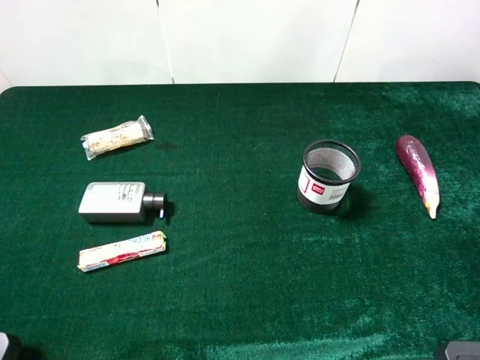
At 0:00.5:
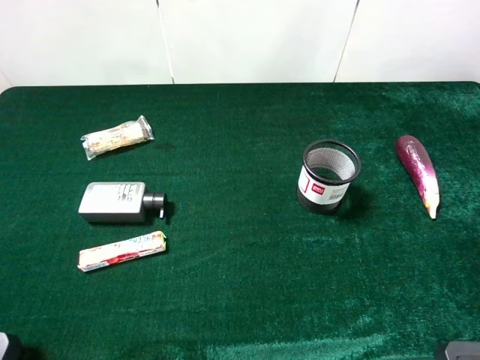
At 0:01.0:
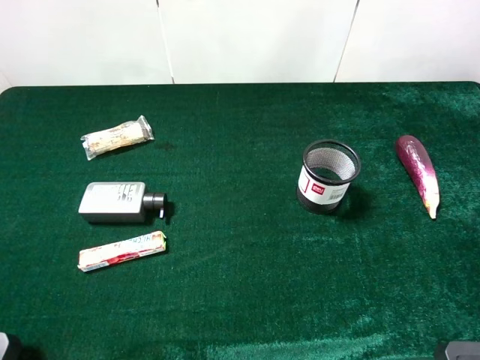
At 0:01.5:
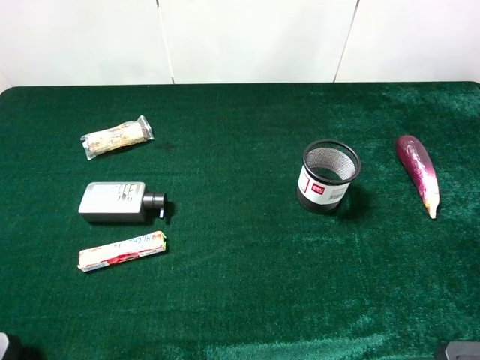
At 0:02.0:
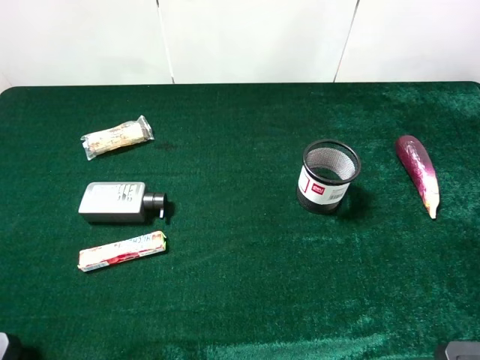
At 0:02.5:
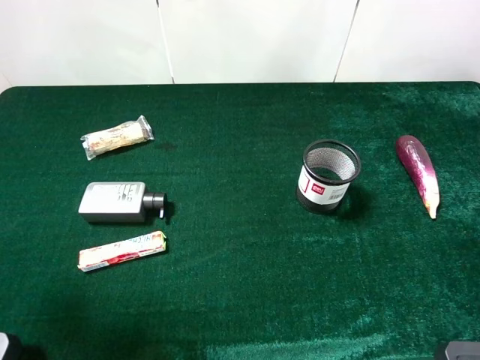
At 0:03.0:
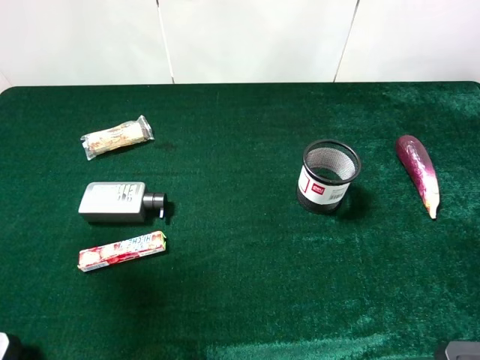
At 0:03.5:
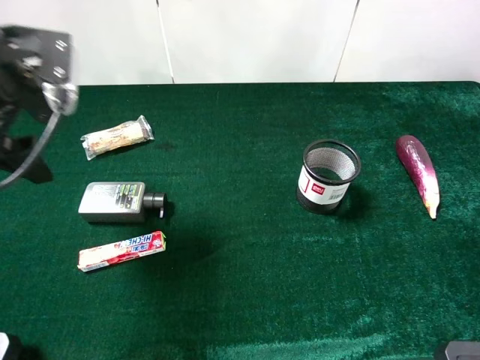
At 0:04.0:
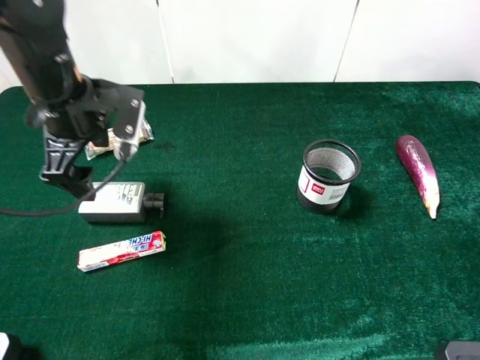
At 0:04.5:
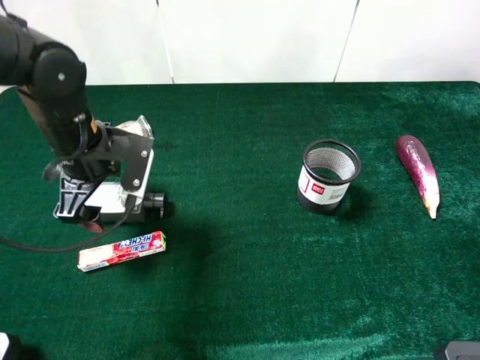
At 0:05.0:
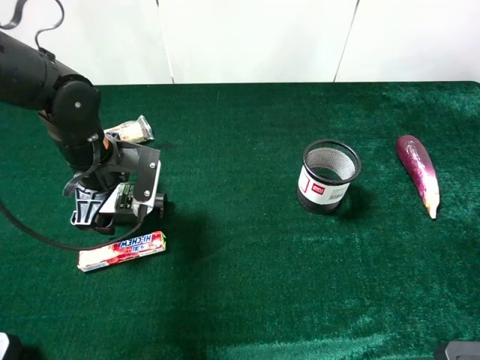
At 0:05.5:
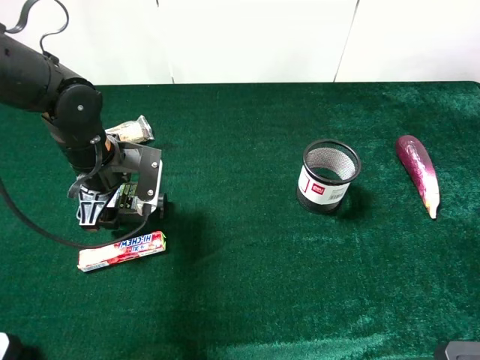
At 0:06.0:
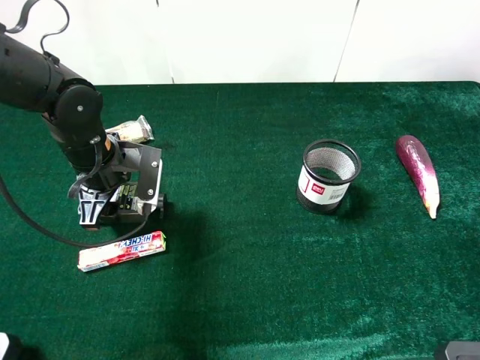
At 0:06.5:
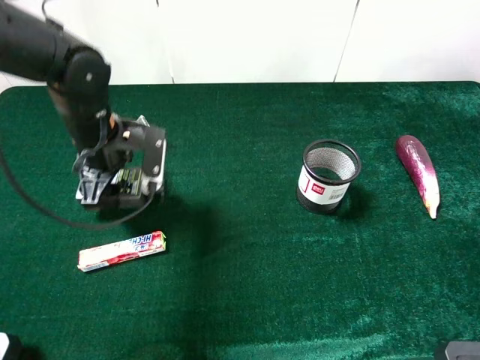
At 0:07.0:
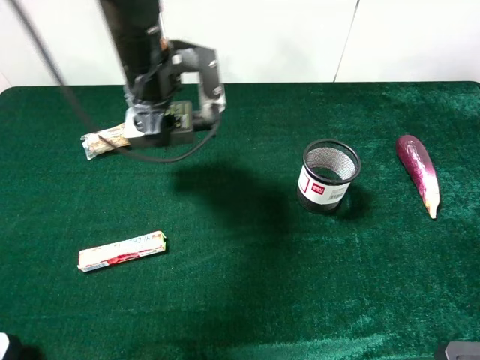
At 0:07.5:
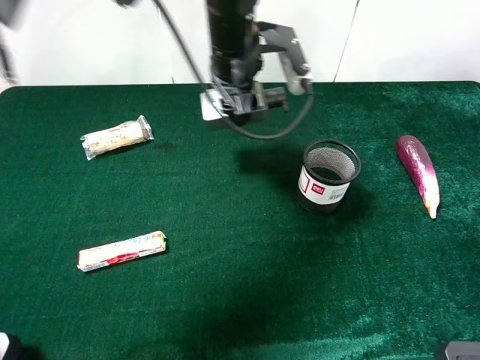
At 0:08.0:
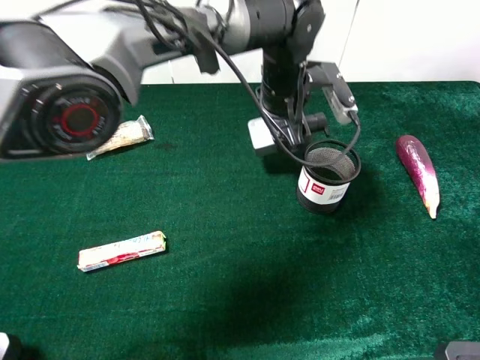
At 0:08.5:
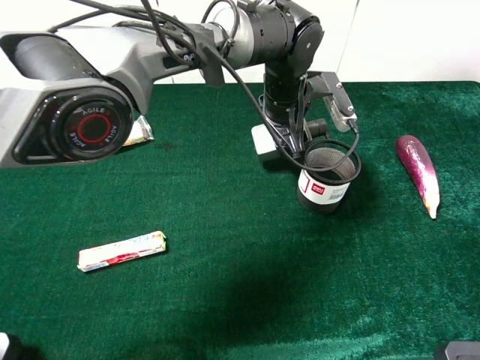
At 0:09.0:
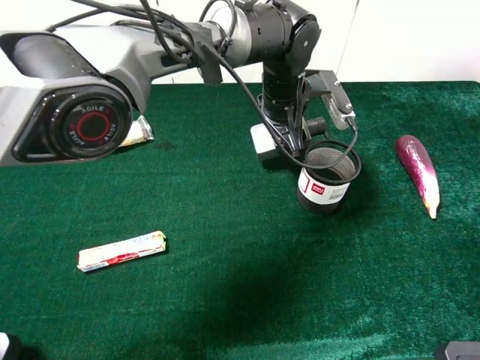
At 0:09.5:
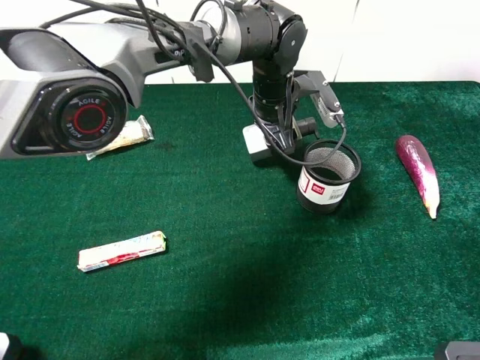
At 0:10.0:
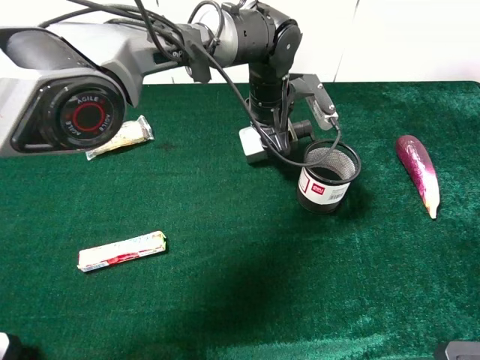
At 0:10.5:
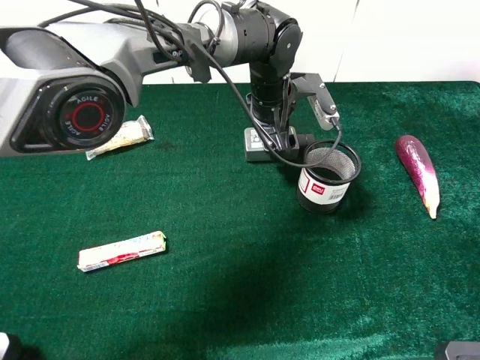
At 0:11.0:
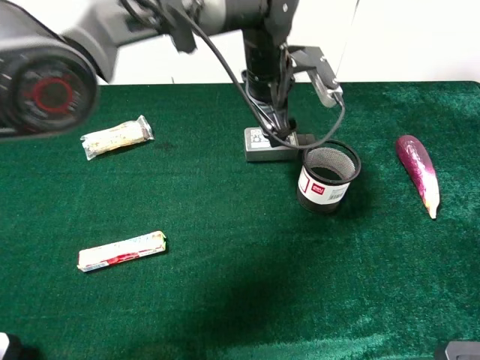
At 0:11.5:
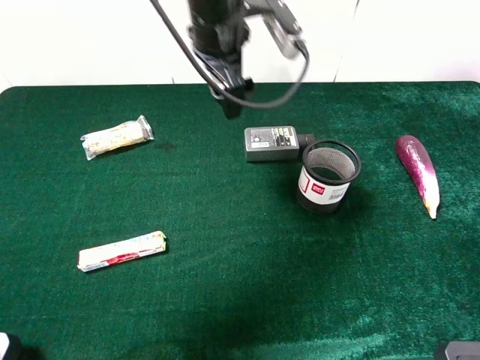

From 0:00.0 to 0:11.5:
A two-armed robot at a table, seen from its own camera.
Task of the whole recording: the gripper move the object.
Step, from 0:00.0 to 0:05.5: Grasp the hard facial cleanser with the left gripper.
Step, from 0:06.0 to 0:10.0: Place the hard facial cleanser on the table with the left gripper.
From 0:02.0 to 0:04.0: The left gripper shifts roughly 30 cm forward and to the right.
From 0:04.0 to 0:06.0: The left gripper travels downward by some 10 cm, and closes.
From 0:06.0 to 0:07.5: The left gripper moves to the right, forward and upward, roughly 25 cm.
From 0:07.5 to 0:09.5: The left gripper heads downward, covering about 10 cm.
From 0:09.5 to 0:11.5: The left gripper heads upward and to the left, covering approximately 15 cm, and opens up.

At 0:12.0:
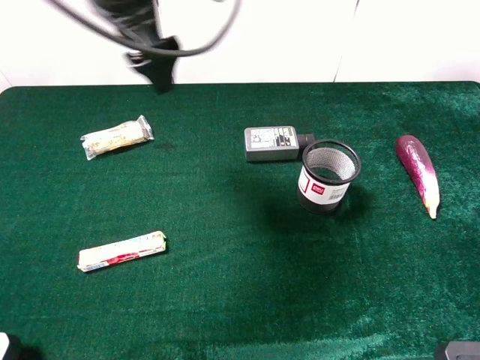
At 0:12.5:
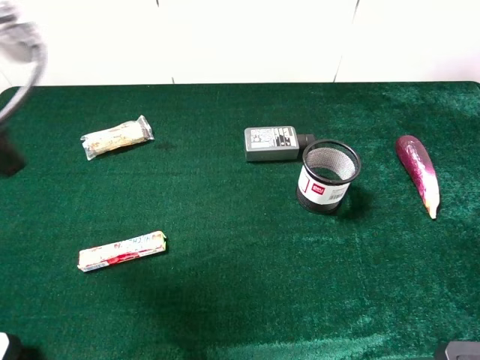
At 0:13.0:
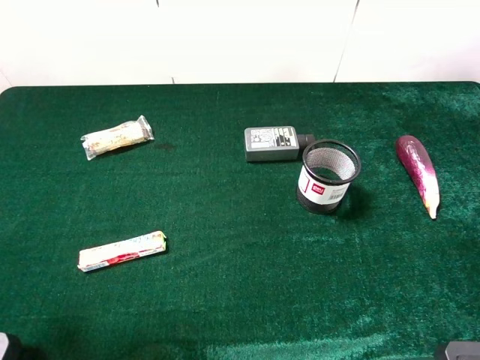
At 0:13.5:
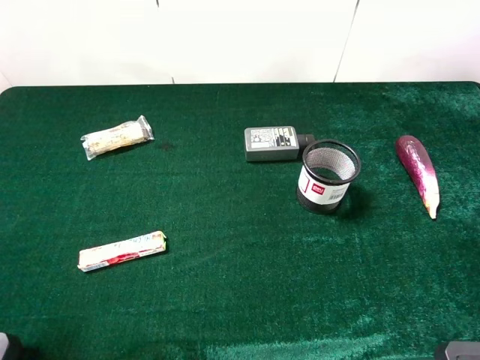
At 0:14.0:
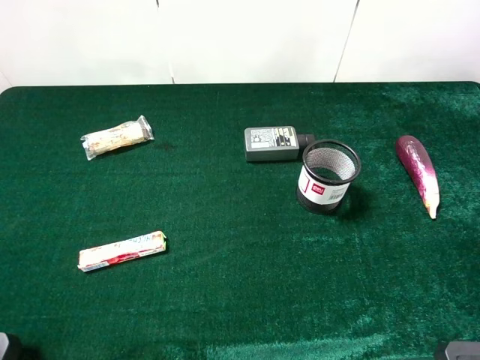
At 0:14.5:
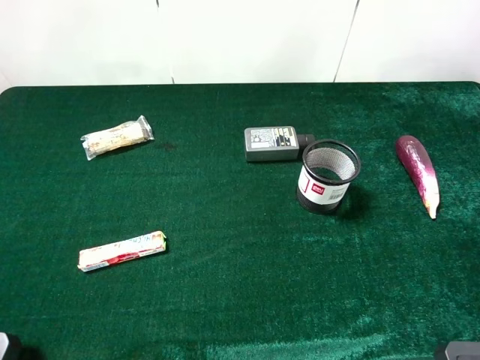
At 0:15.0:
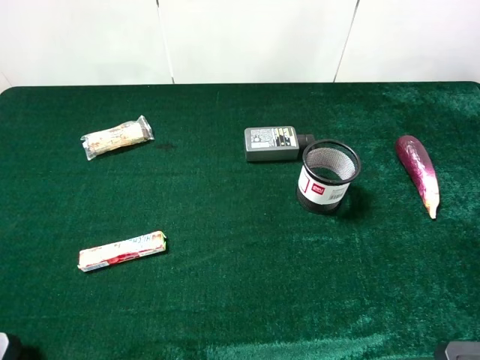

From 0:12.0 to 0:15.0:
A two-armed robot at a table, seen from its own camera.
Task of the whole recording: the gripper move the object.
From 0:12.0 to 0:13.5: The left gripper heads backward and to the left, covering about 30 cm.

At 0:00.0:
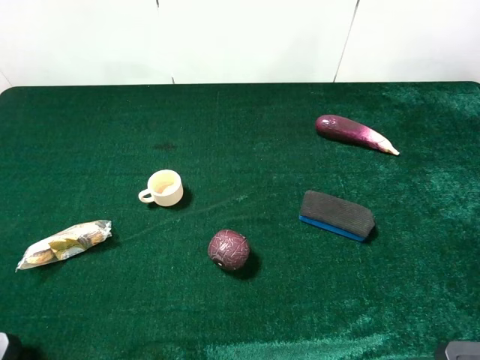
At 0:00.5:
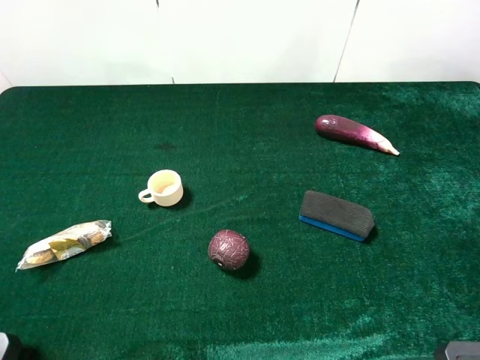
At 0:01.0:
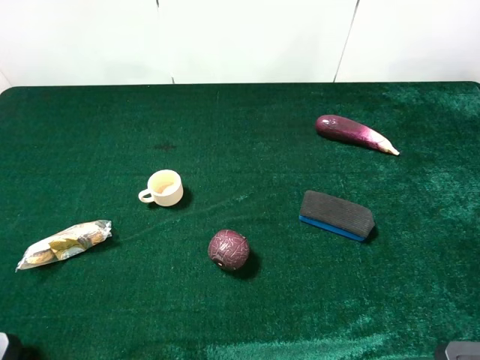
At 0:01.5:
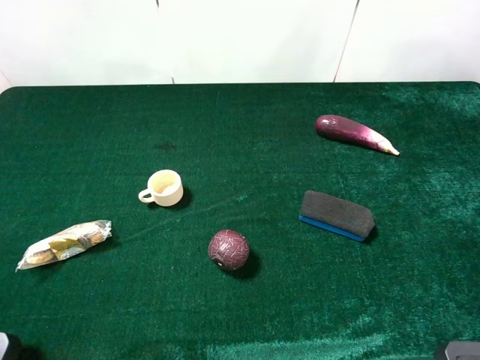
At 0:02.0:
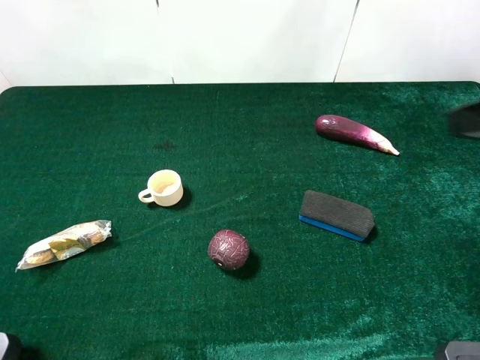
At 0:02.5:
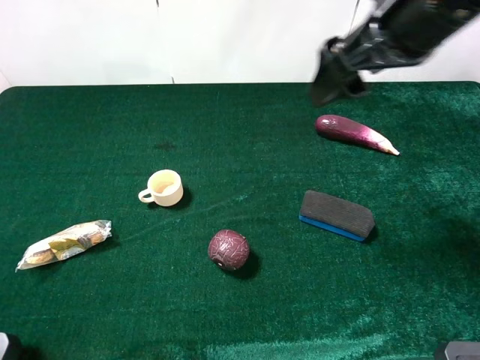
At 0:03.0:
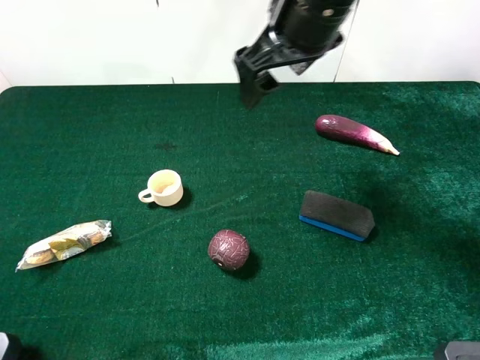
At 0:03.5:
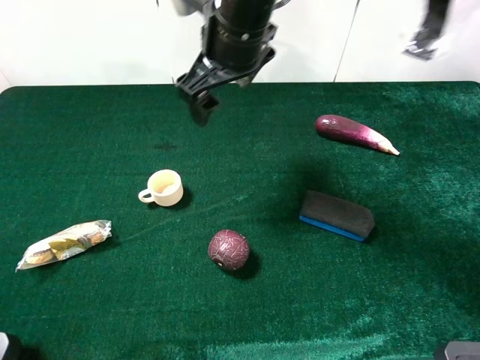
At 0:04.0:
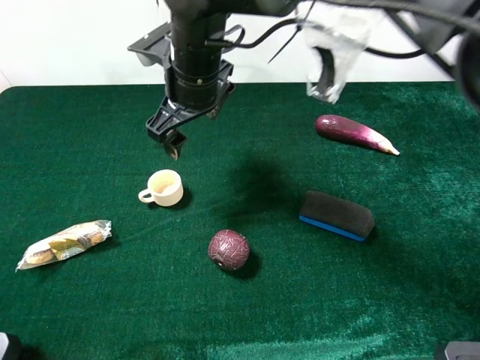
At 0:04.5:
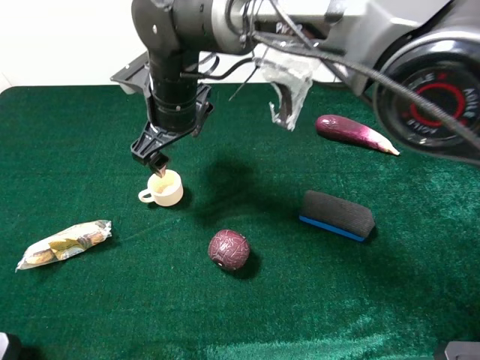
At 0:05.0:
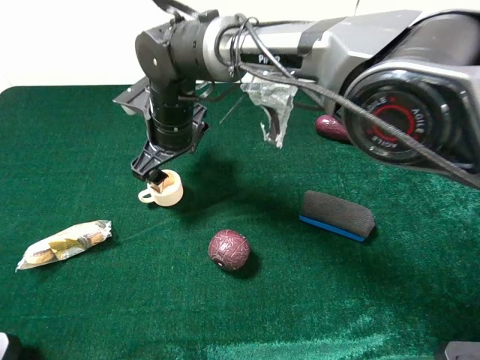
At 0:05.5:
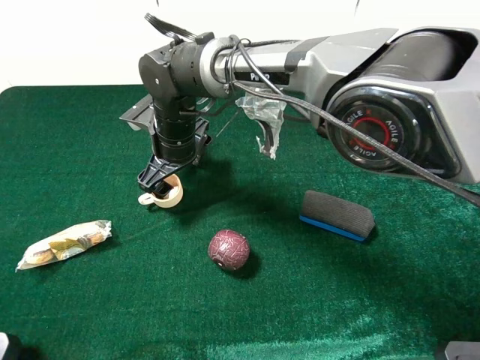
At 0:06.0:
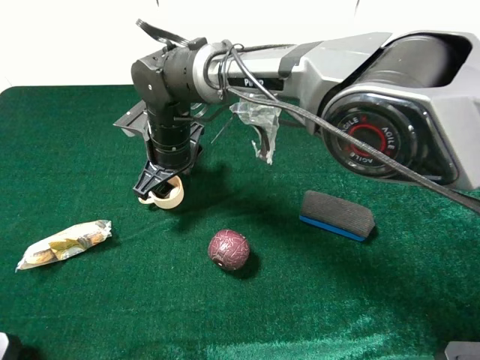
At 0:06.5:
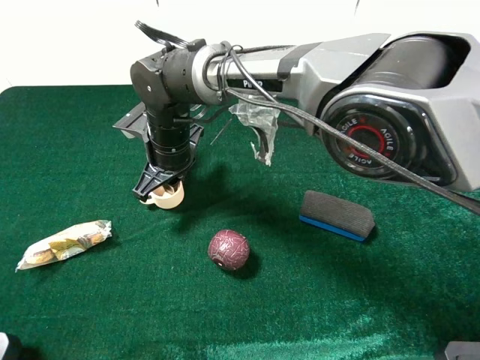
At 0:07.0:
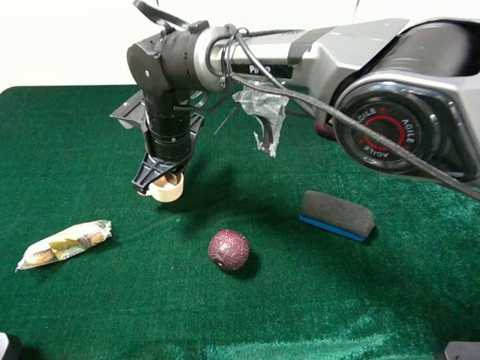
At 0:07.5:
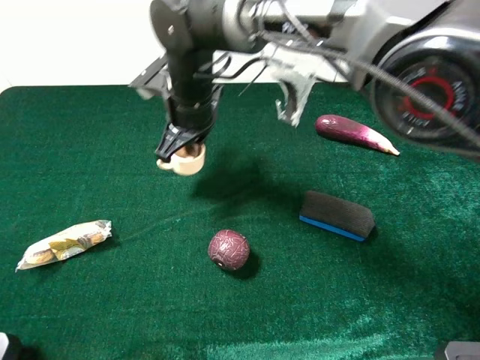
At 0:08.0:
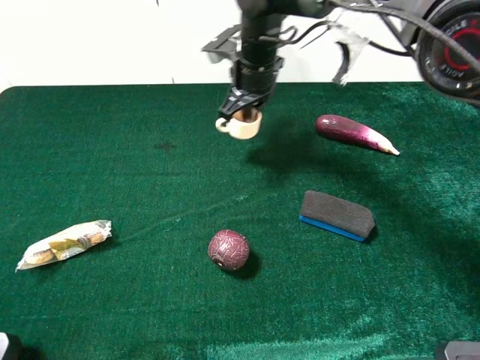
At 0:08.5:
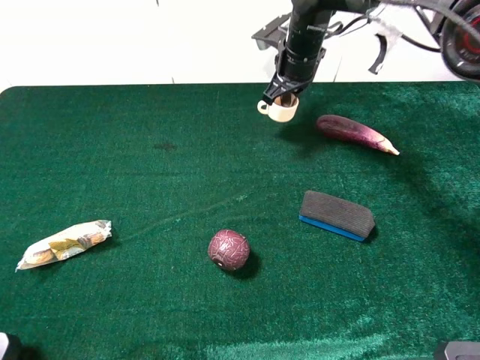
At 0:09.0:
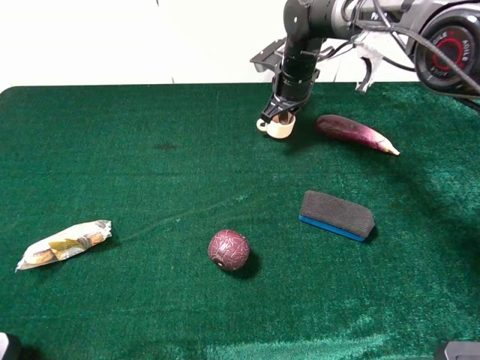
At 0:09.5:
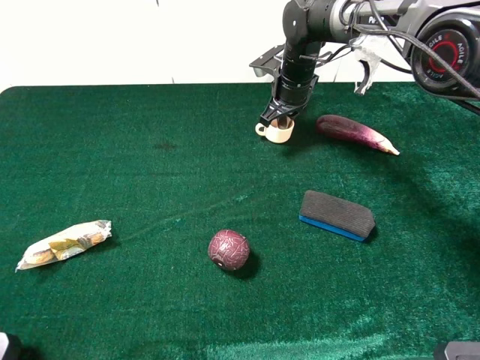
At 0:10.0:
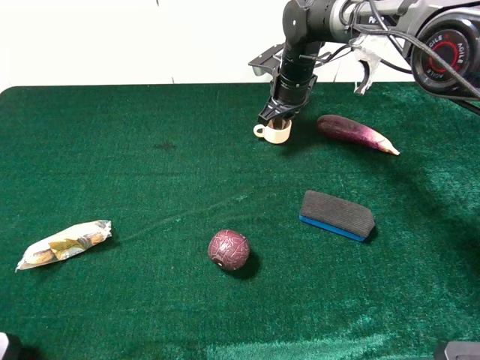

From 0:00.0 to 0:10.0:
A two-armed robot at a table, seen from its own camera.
Task of the whole recording: the gripper move the object.
Step, from 0:00.0 to 0:06.5: Grasp the teacup with the right gripper.
From 0:02.0 to 0:04.0: The right gripper moves to the left, forward and downward, some 40 cm.
From 0:04.0 to 0:06.0: The right gripper is displaced downward by about 10 cm, and closes up.
From 0:06.0 to 0:08.0: The right gripper is displaced to the right, forward and upward by roughly 20 cm, and closes its fingers.
From 0:08.0 to 0:10.0: The right gripper is displaced to the right and downward by roughly 10 cm, and opens up.

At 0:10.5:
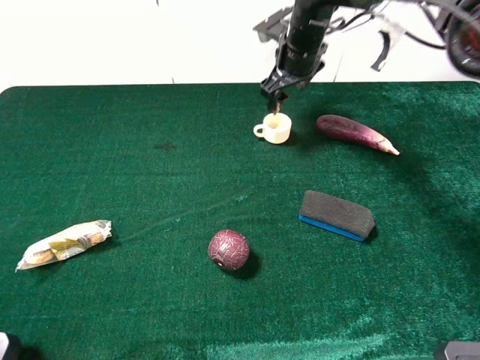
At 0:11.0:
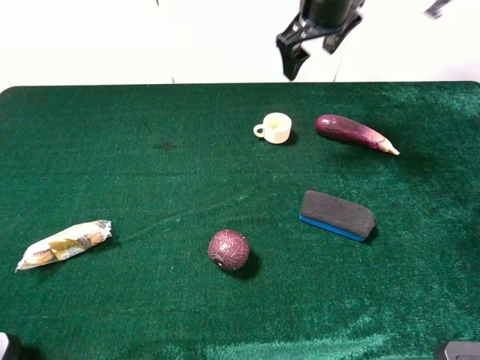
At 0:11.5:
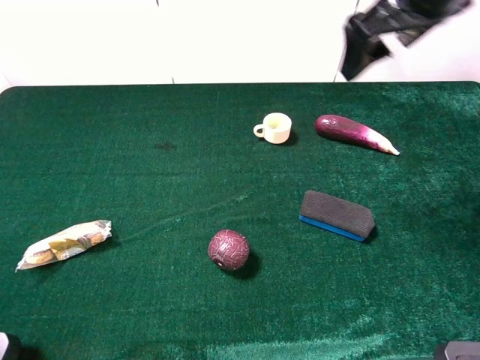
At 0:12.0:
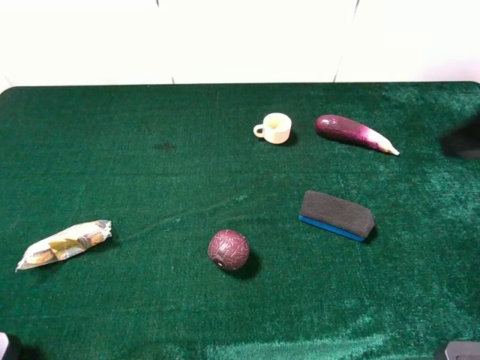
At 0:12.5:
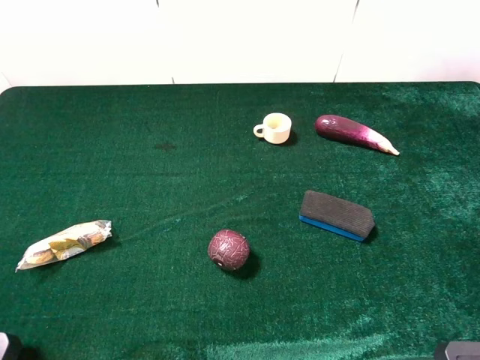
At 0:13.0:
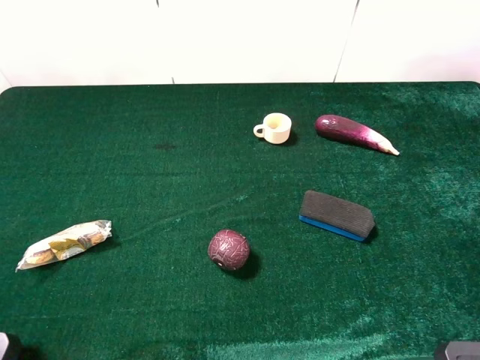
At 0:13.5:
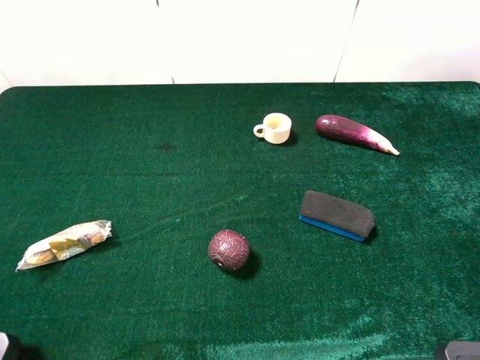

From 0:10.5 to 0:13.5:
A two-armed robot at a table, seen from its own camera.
Task of the whole recording: the gripper move the object.
From 0:10.5 to 0:12.0: The right gripper is displaced backward, to the right and upward by about 40 cm.
